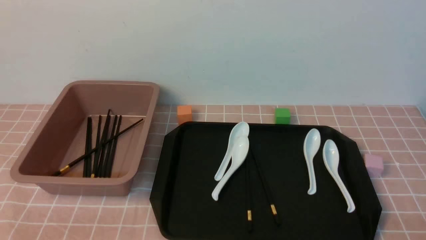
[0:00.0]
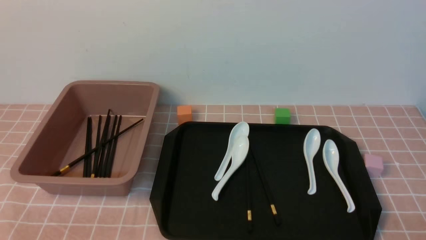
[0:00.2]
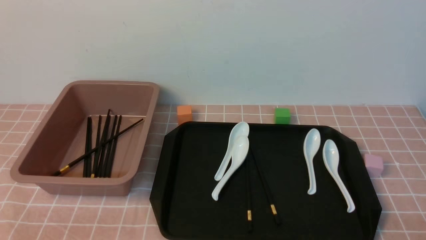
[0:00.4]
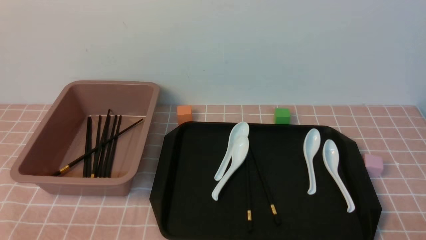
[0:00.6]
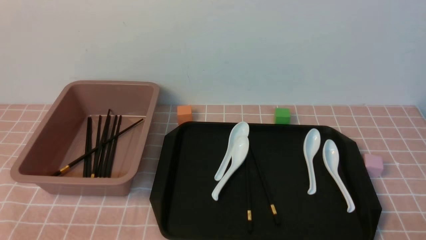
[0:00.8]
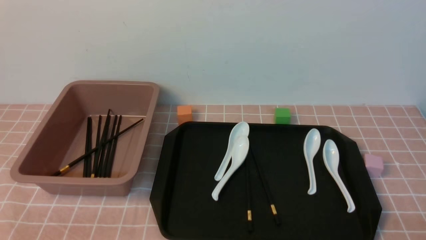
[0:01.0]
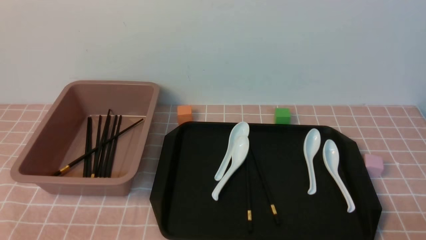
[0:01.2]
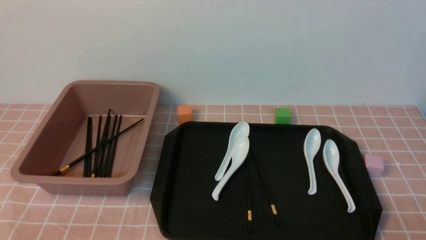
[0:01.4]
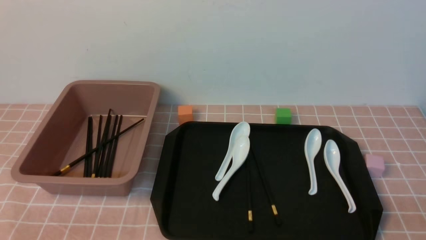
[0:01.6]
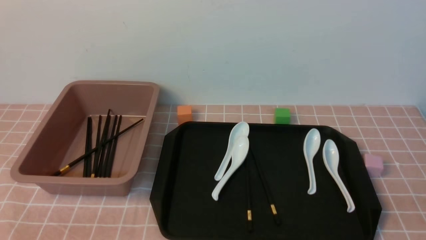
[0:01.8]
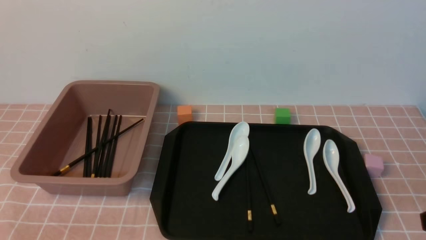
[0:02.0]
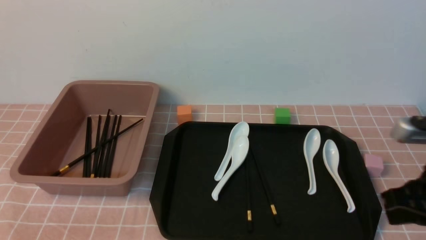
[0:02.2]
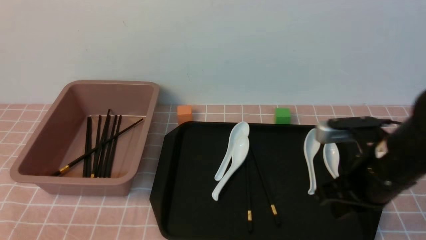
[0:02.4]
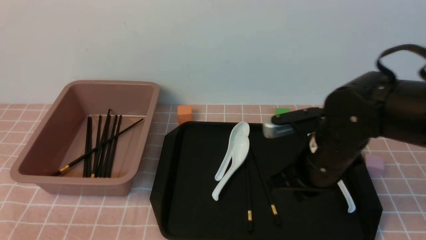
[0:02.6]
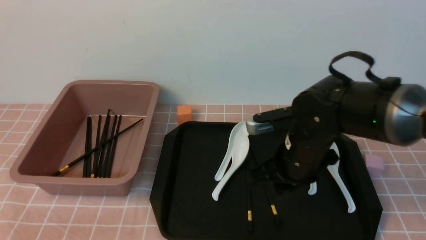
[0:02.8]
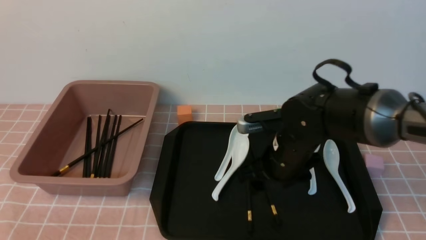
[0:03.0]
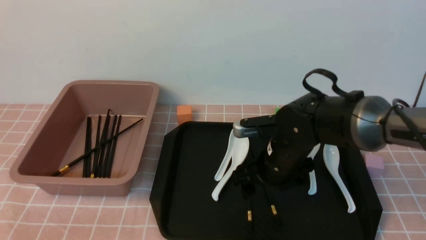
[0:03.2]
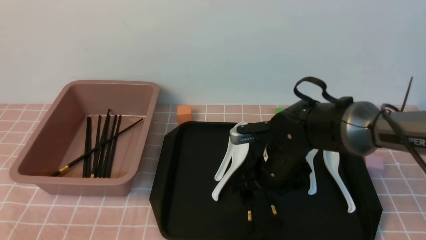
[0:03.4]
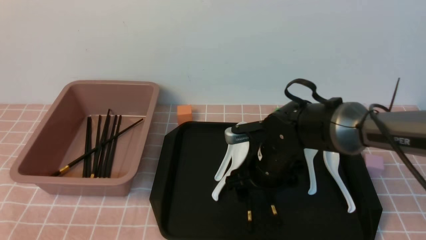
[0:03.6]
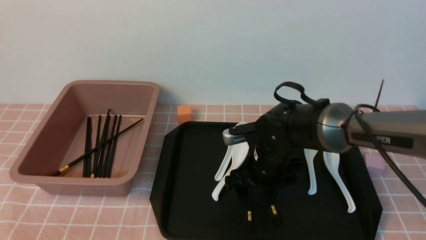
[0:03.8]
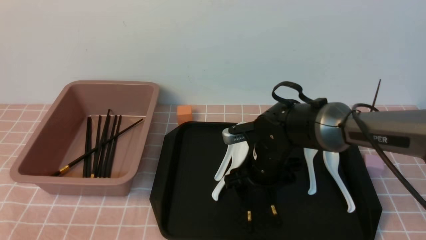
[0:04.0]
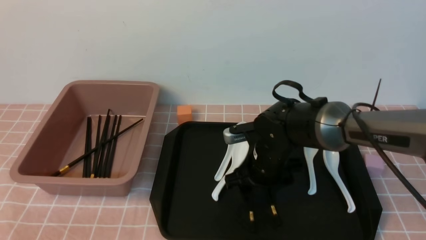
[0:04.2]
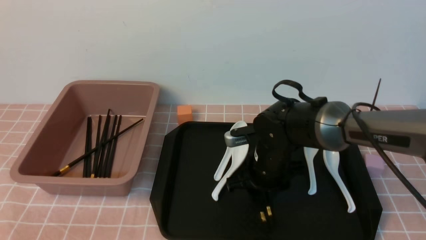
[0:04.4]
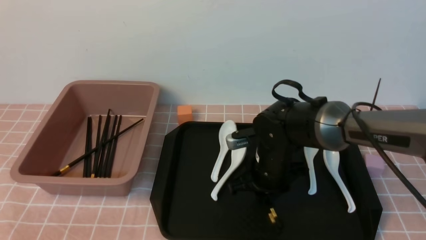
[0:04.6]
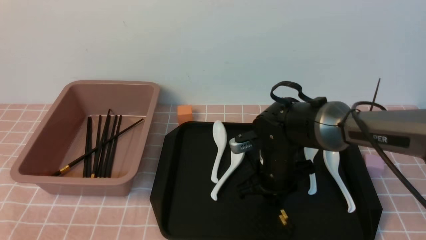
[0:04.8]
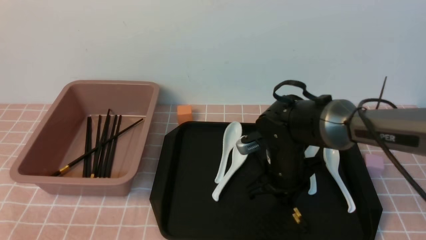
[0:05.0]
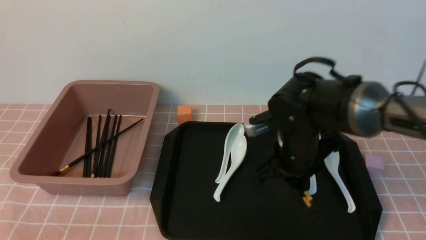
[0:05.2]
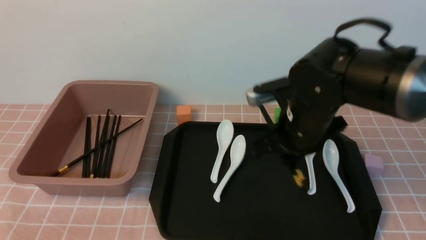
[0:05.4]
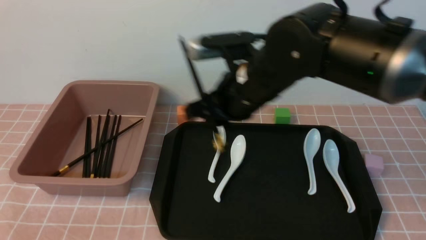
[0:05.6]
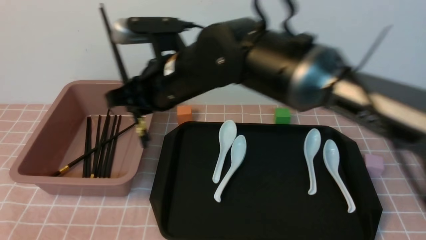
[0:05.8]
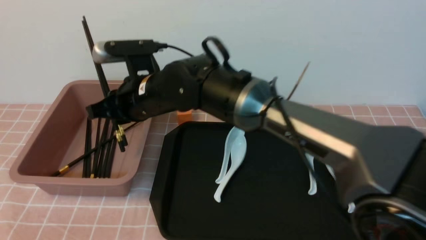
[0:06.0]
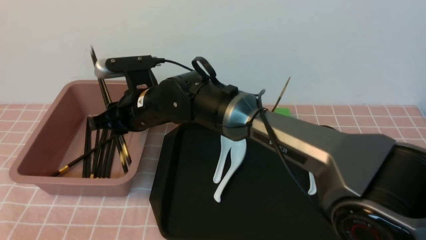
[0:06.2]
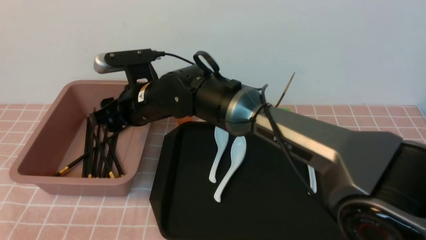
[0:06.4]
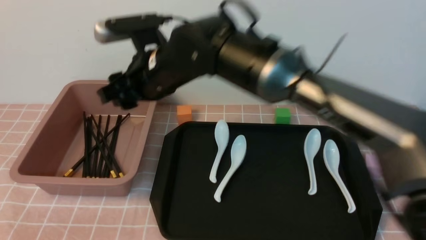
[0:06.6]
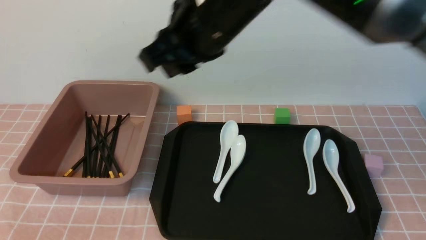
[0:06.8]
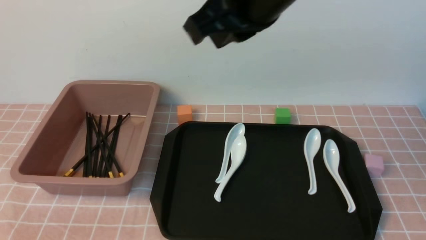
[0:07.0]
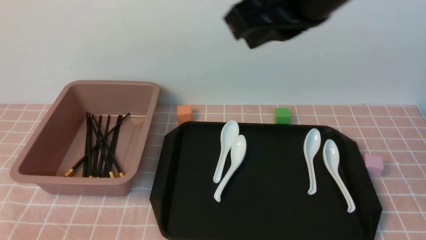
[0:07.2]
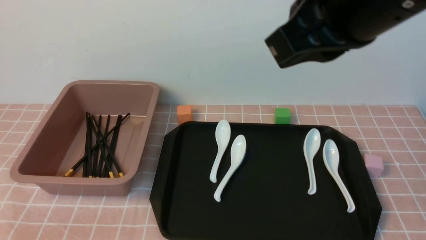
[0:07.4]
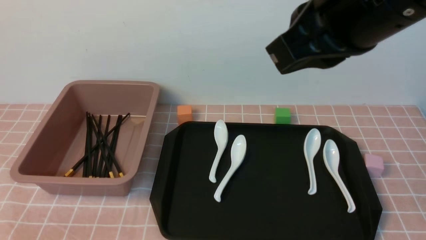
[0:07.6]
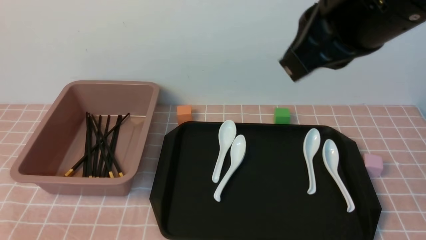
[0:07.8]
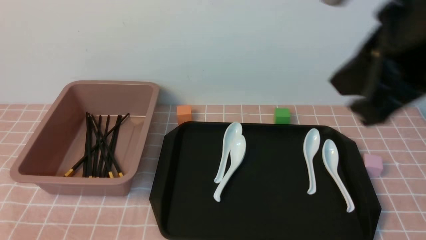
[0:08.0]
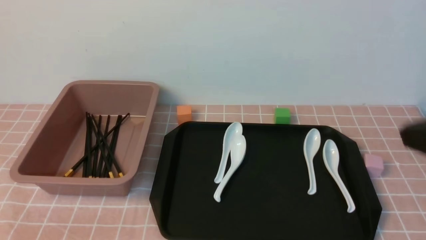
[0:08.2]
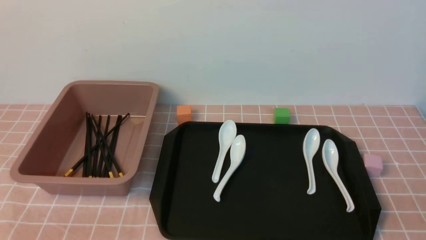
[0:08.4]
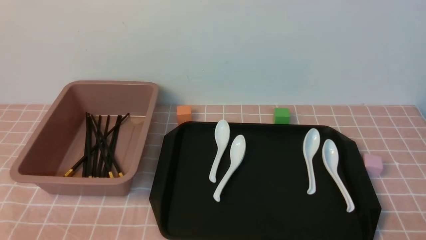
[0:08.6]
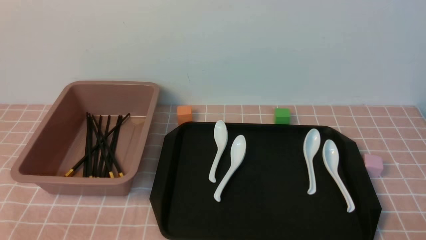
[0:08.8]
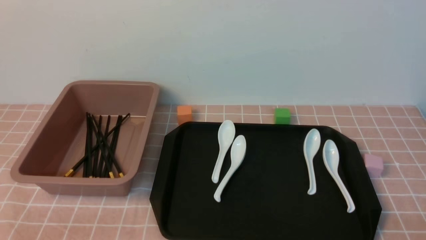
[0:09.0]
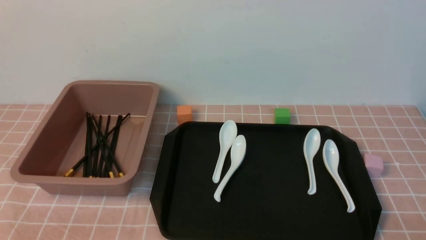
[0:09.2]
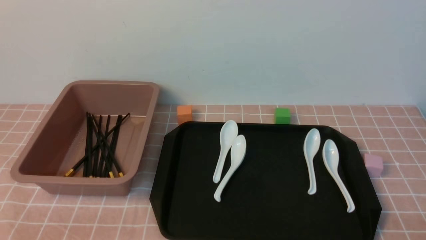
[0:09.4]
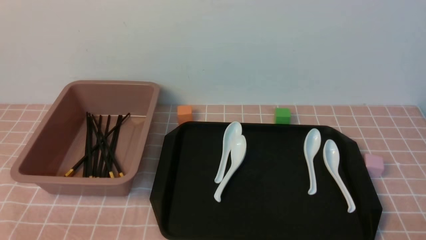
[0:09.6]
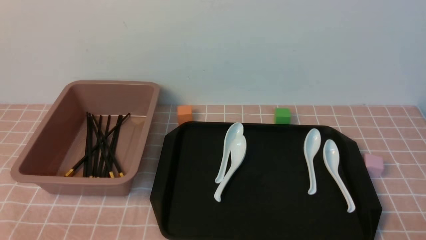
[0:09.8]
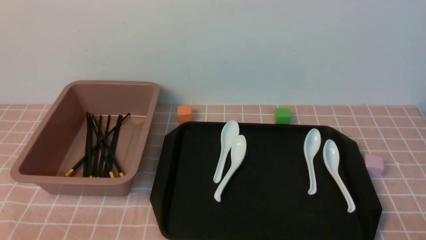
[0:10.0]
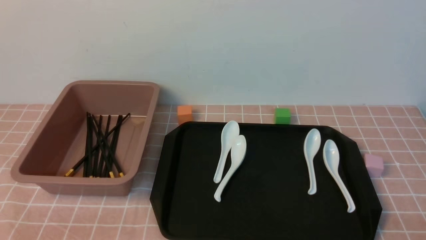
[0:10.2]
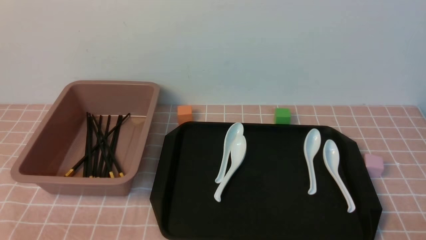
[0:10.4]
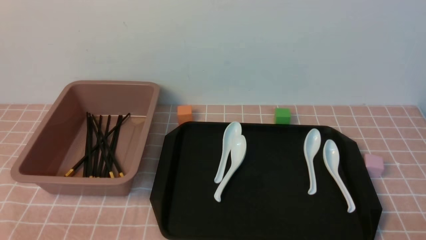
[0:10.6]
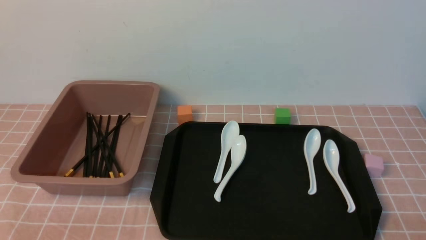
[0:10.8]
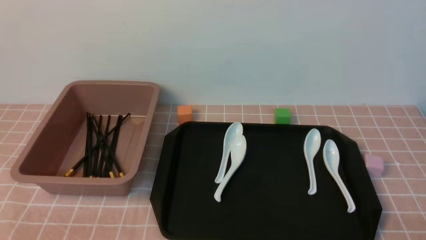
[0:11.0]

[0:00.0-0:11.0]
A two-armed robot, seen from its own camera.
Step, 0.0 to 5.2 s: use the right arm to grab a pair of chopsticks.
Step, 5.4 to 6.6 s: use the right arm to put the chopsticks into the lunch box.
0.0 to 1.6 s: The right gripper moves upward, roughly 5 cm.
1.6 to 3.2 s: The right gripper heads forward and to the left, covering approximately 35 cm, and opens up.
3.2 to 4.8 s: The right gripper closes its fingers.
4.8 to 6.2 s: The right gripper heads to the left and upward, covering some 20 cm.
6.2 to 7.8 s: The right gripper heads to the right, upward and backward, covering some 35 cm, and closes.
7.8 to 9.4 s: The right gripper travels downward, to the right and backward by about 35 cm.
9.4 to 11.0 s: The two grippers keep their place.

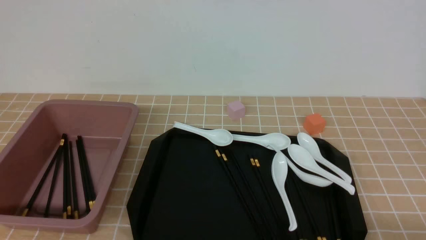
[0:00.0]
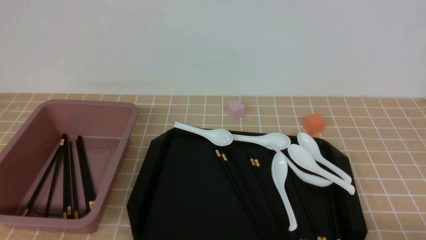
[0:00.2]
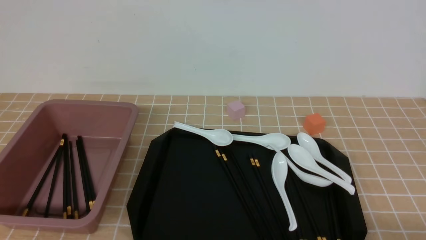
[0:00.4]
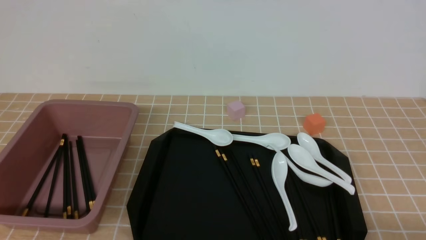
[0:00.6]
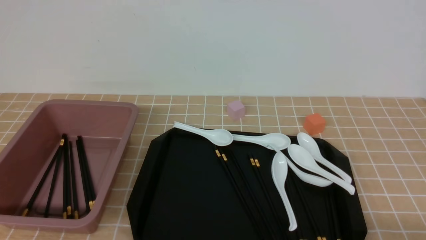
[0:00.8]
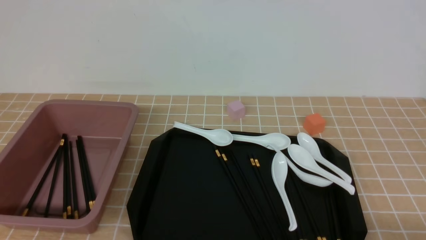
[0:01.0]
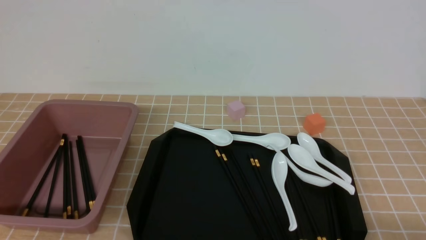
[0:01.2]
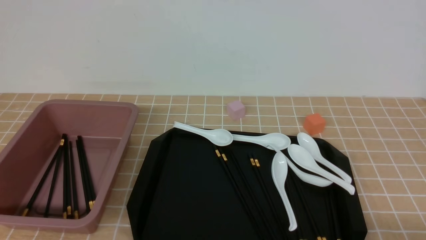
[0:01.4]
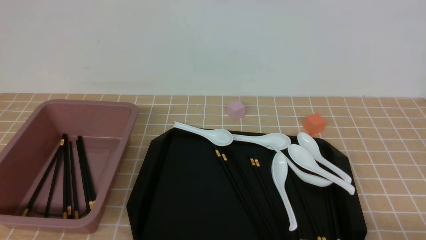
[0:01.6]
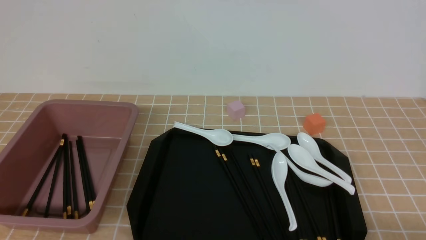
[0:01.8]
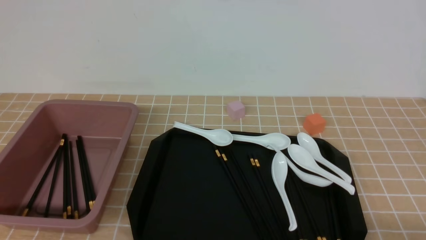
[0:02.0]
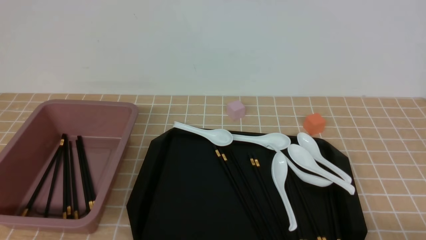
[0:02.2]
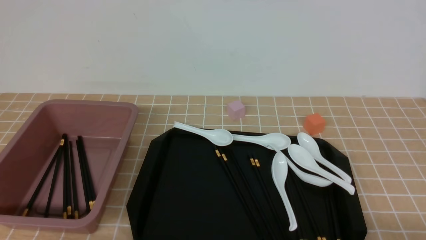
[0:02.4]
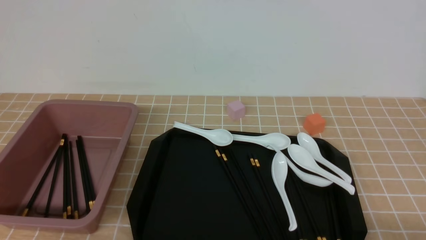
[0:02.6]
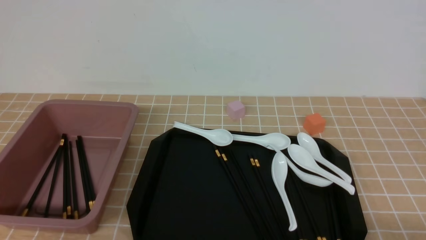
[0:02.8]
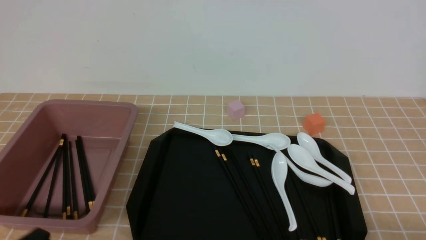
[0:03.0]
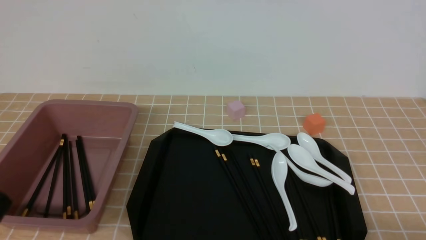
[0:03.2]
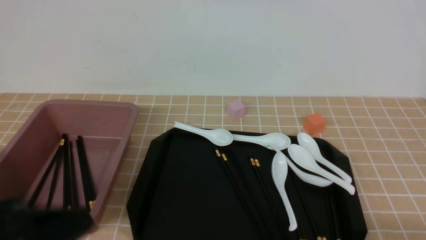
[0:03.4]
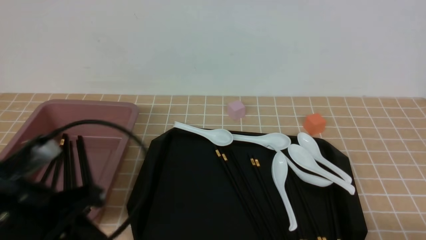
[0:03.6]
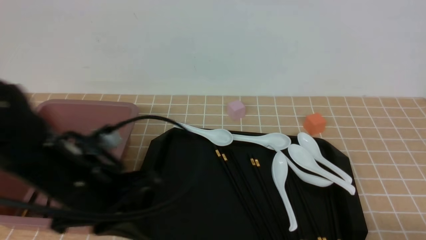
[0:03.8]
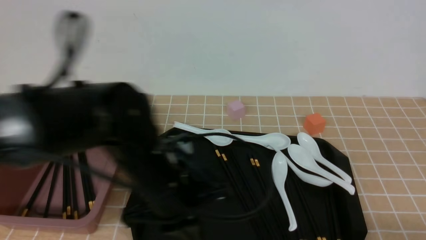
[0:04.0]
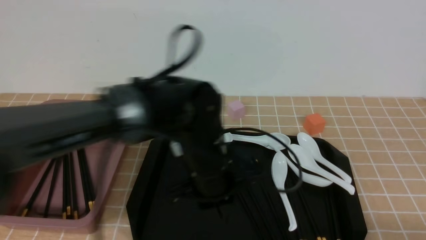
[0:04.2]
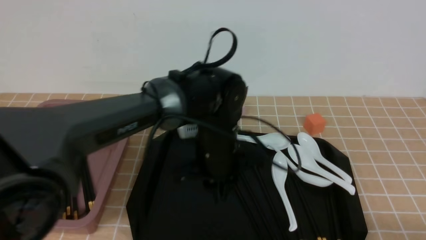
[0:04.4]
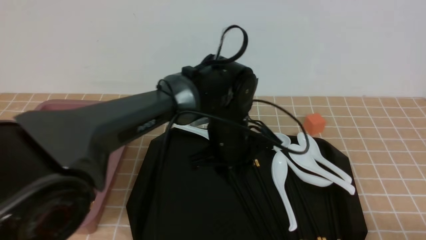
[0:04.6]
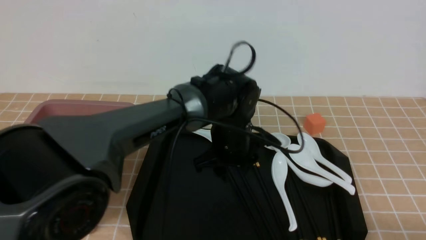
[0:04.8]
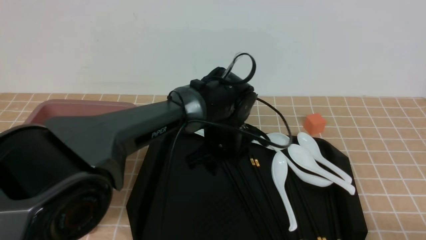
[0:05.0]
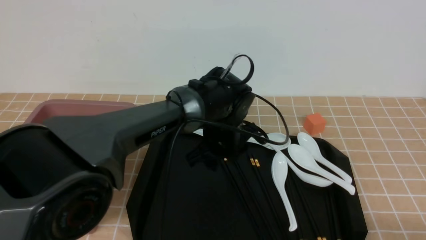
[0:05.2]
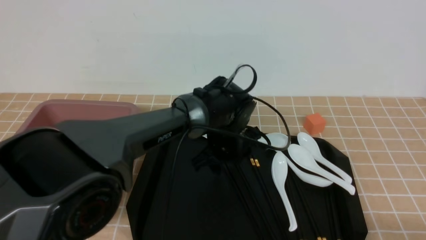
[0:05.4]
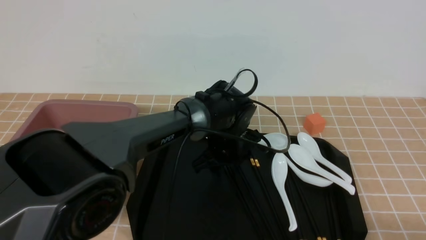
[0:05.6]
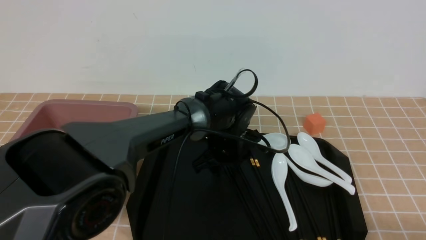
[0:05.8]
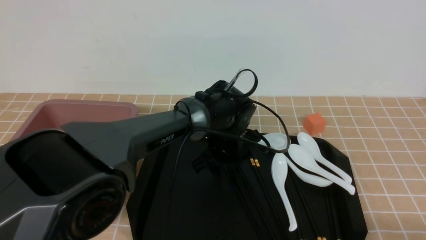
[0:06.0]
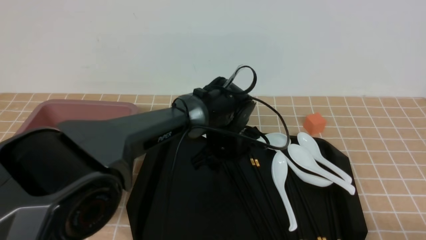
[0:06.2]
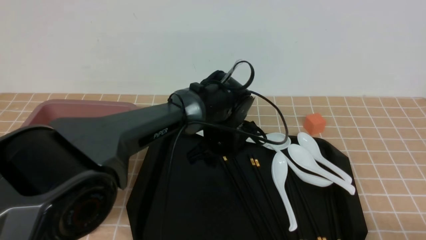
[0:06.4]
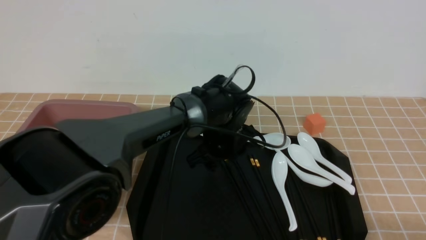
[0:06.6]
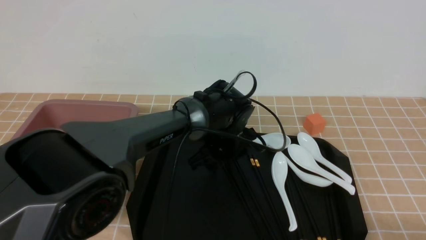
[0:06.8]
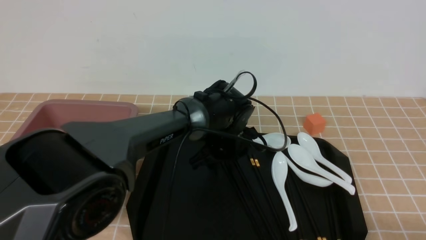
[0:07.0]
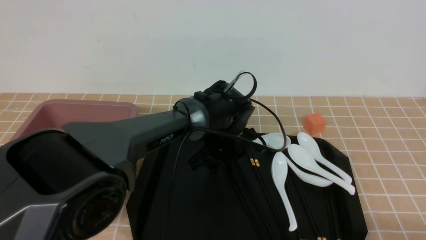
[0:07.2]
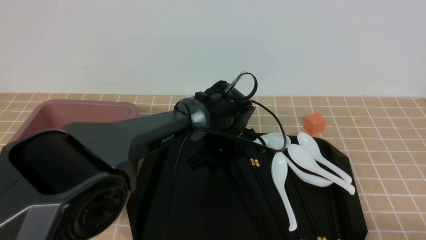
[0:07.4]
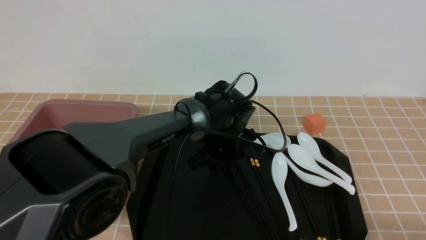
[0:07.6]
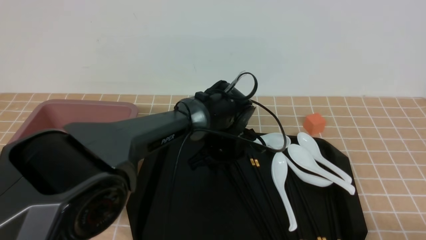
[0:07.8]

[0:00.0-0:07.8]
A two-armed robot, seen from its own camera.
3.2 to 4.6 s: The left gripper is displaced forward and to the right by some 40 cm.
4.6 to 6.2 s: The left gripper goes roughly 5 cm forward, and opens up.
6.2 to 7.8 s: Neither gripper changes place.
